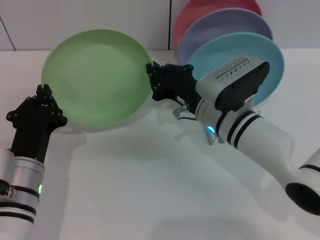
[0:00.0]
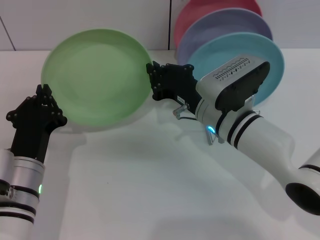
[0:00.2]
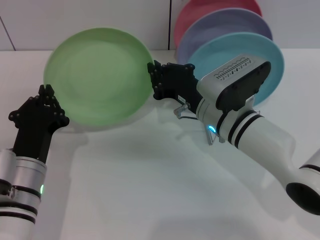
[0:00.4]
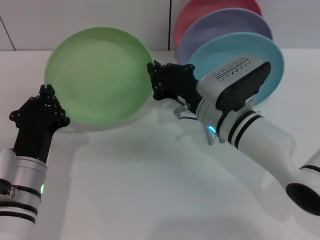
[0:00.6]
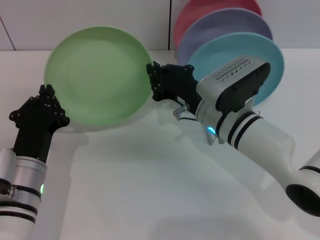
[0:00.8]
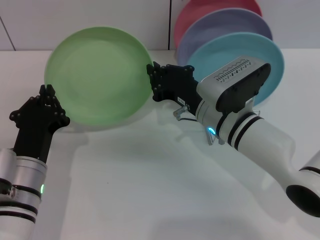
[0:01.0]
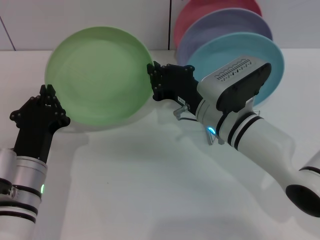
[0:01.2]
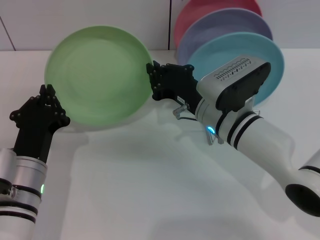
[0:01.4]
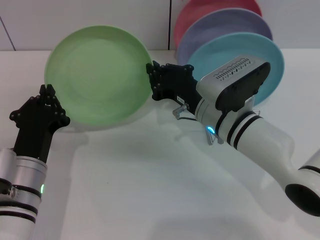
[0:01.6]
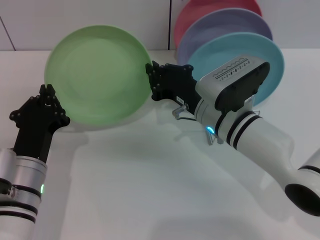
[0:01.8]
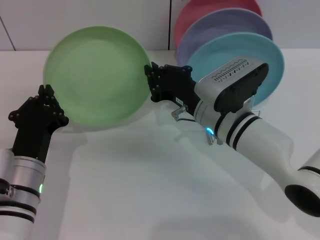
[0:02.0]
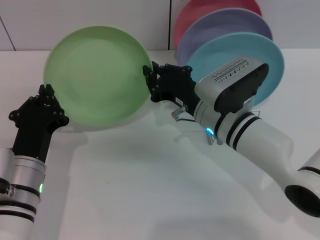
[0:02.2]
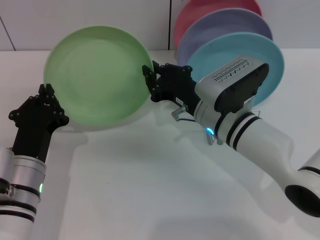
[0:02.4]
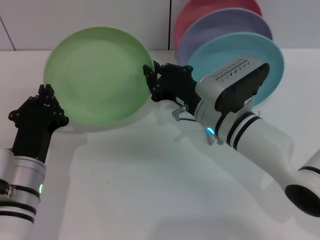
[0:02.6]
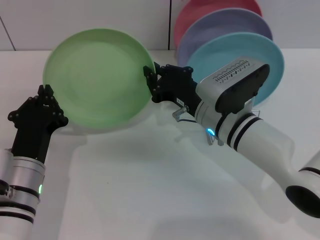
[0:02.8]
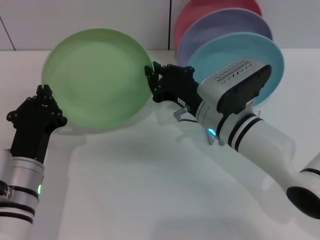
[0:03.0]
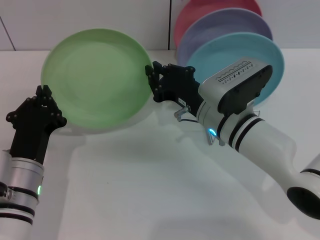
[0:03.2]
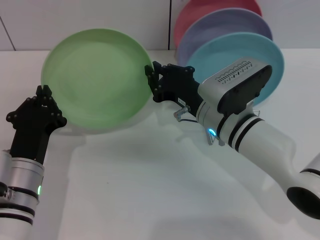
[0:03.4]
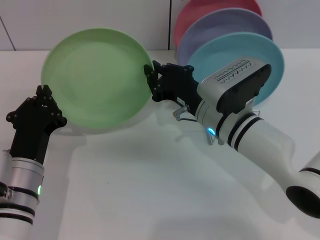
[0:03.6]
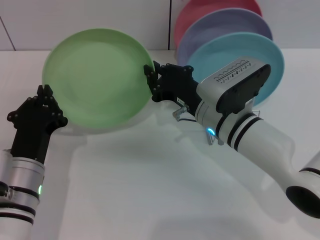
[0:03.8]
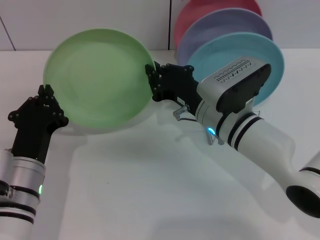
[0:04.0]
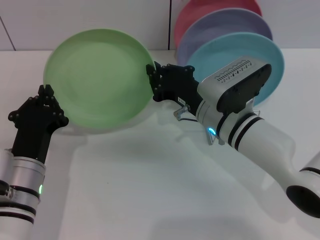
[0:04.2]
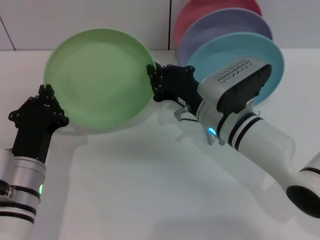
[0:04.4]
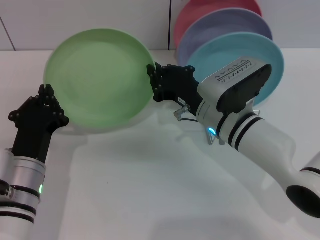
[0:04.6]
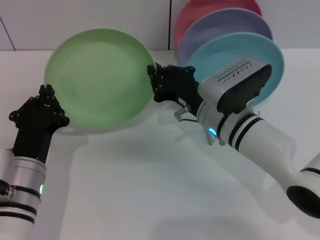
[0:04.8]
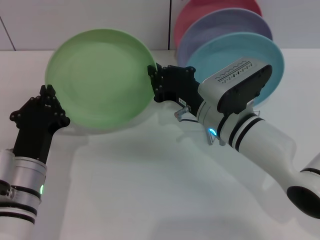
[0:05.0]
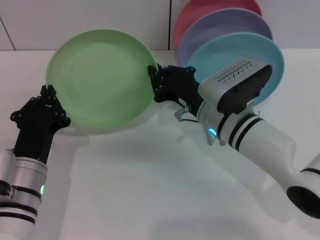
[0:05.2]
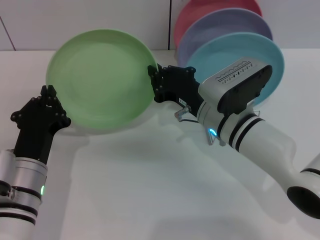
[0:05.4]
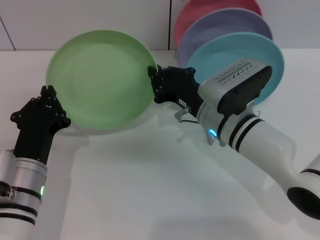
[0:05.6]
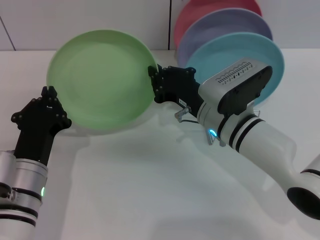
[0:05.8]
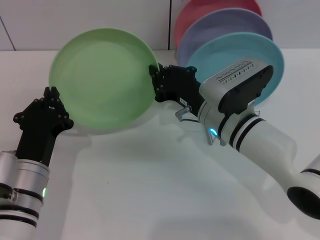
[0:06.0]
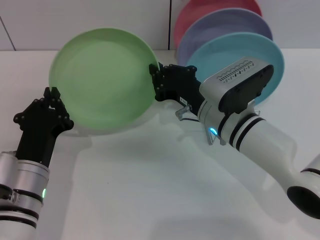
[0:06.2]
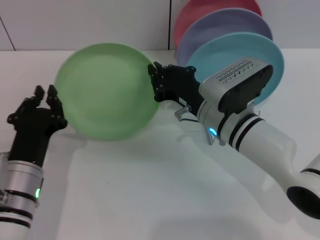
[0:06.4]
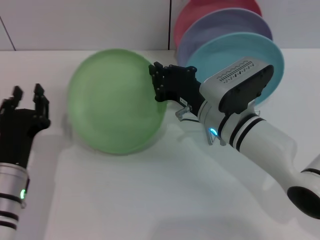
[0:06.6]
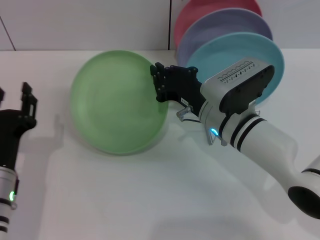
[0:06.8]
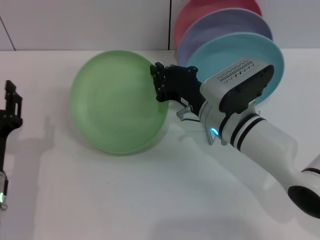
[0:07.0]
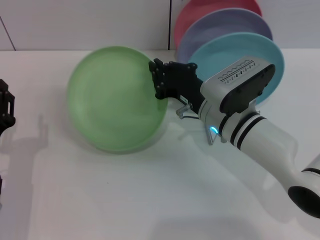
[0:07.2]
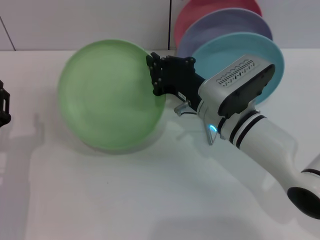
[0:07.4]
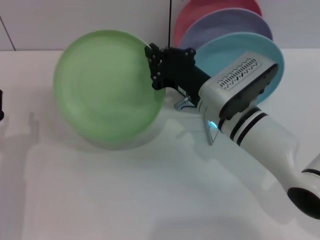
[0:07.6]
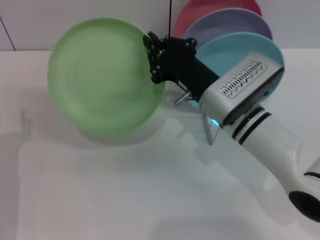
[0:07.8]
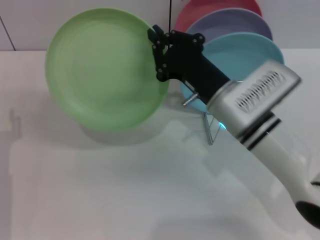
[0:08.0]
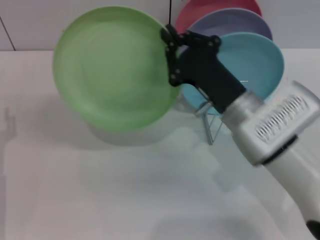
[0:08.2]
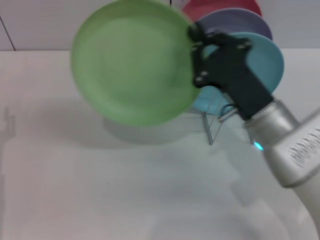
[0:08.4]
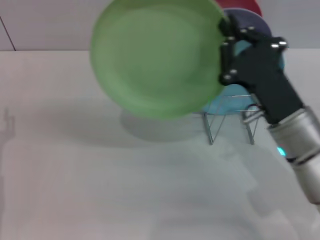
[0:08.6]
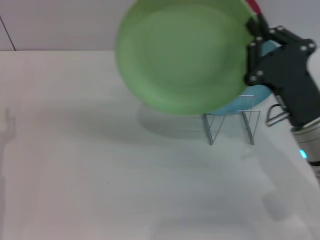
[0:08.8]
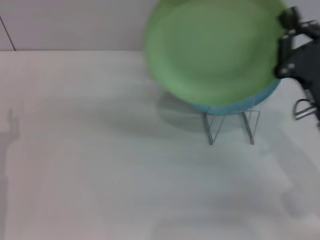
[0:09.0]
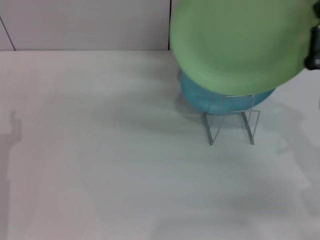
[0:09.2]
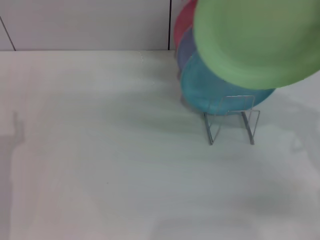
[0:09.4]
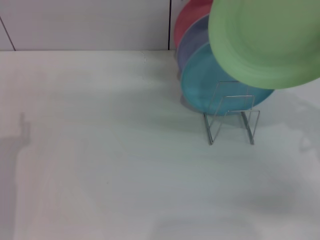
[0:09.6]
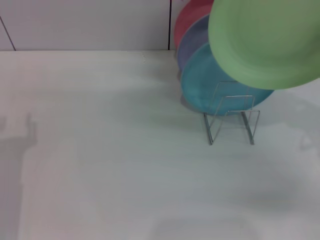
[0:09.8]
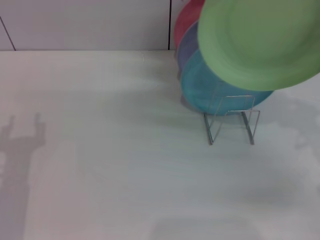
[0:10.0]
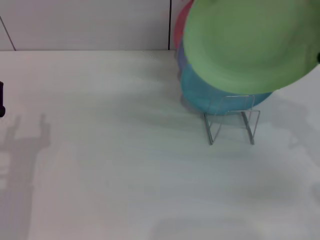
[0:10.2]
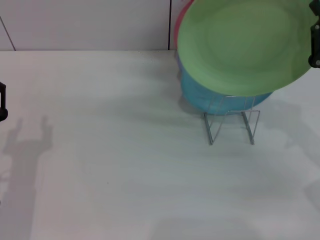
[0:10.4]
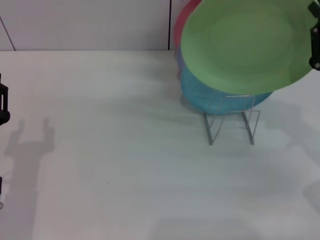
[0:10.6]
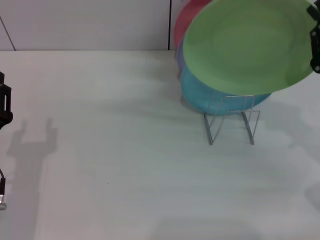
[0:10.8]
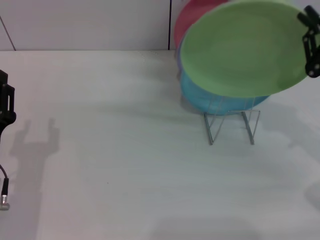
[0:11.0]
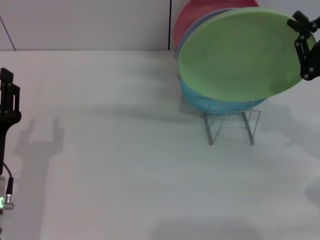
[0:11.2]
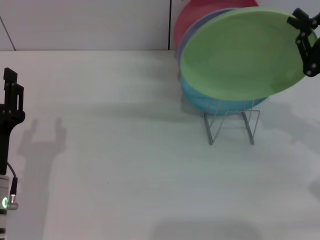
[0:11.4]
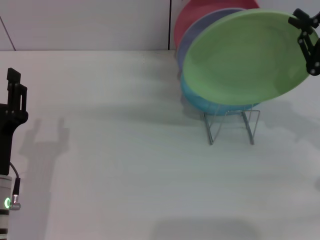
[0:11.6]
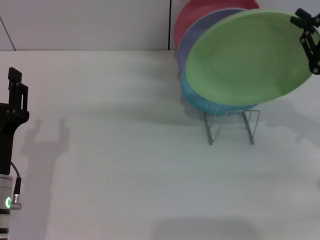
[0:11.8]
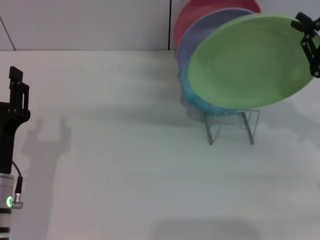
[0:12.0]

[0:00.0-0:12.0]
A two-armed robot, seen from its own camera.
Task of the whole recording: Grip the plate with one hand, pass it to the other, then set it on the shelf.
Step, 0:00.0 to 0:06.6: Pass the plate from the left gripper to the right gripper.
0:00.0 to 0:06.0: Neither gripper changes place.
0:06.0 to 0:07.6: The left gripper travels to the left by approximately 5 cm, and opens up.
0:07.6 to 0:09.0: The right gripper travels to the right and backward by some 15 cm.
0:09.0 to 0:10.4: The left gripper ends up about 5 cm from where it was, while the right gripper heads to the right, covering roughly 5 cm.
0:10.4 to 0:12.0: The right gripper shifts by about 5 cm.

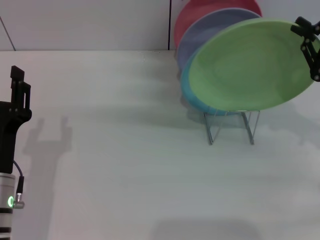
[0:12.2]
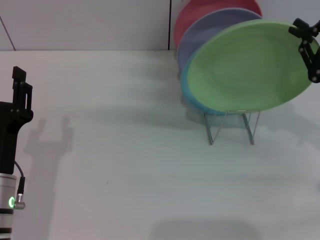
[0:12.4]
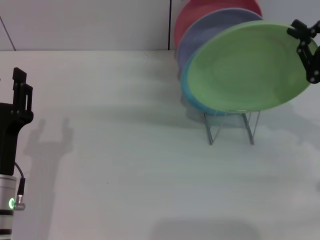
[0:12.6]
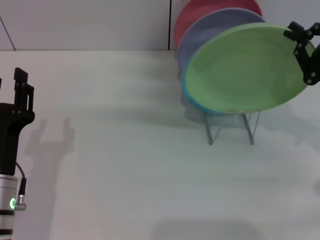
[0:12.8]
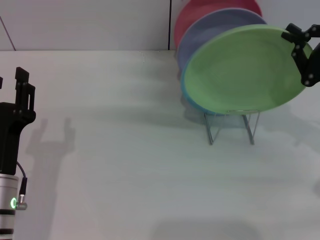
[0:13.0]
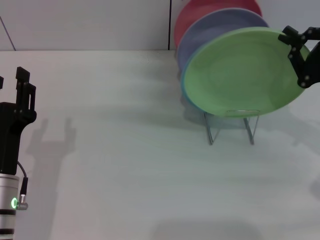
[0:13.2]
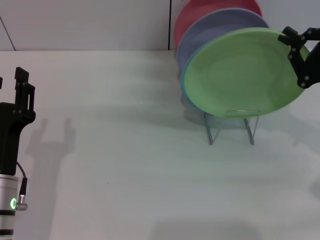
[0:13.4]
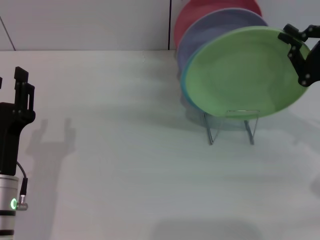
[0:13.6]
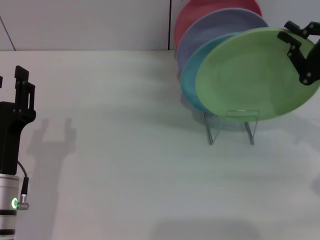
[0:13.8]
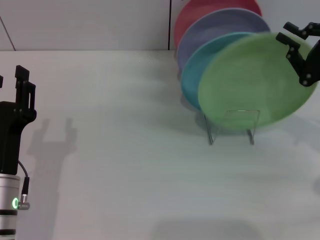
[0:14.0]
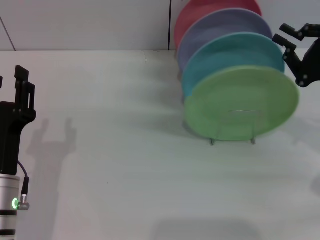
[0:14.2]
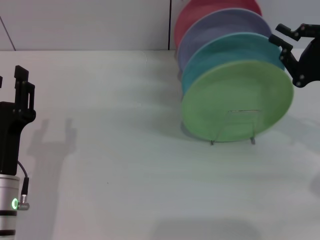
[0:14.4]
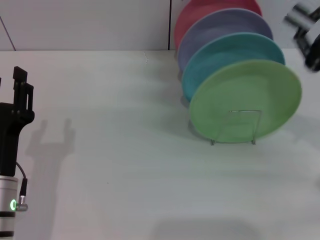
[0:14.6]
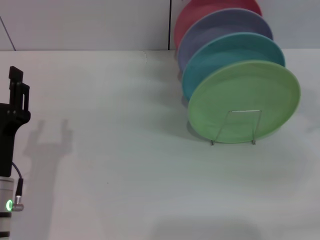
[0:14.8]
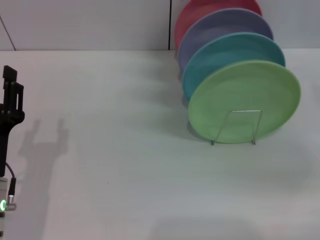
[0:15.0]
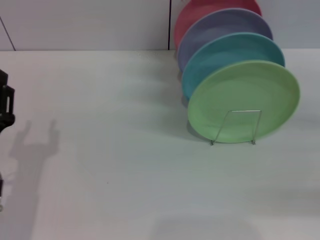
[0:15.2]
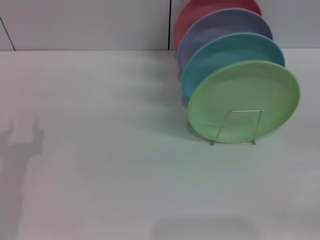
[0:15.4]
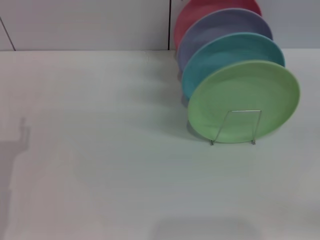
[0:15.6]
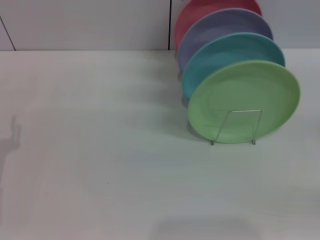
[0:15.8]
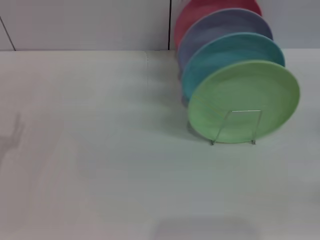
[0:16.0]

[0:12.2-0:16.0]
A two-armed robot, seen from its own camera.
Task of the whole recording: Grip the plate with one hand, pass it to the other, then set it on the shelf.
0:12.2 to 0:13.4: The grippers make only small movements.
0:14.8 to 0:16.0: The left gripper shifts some 10 cm to the left.
